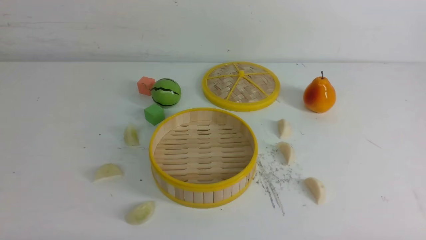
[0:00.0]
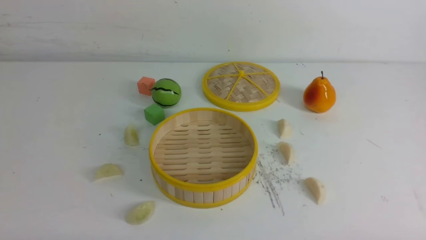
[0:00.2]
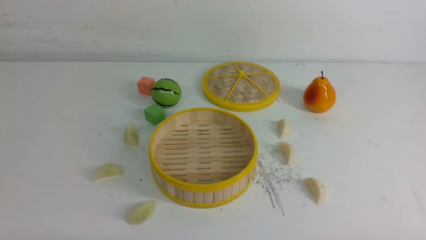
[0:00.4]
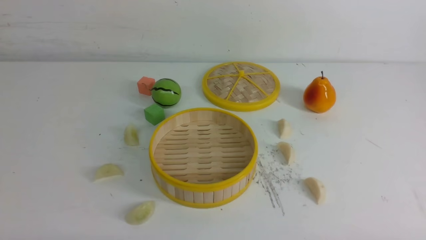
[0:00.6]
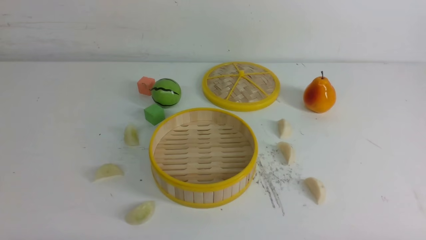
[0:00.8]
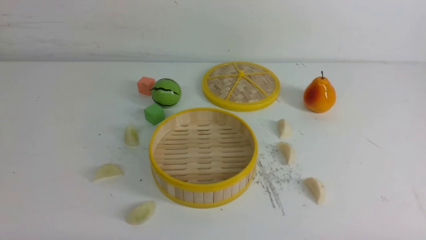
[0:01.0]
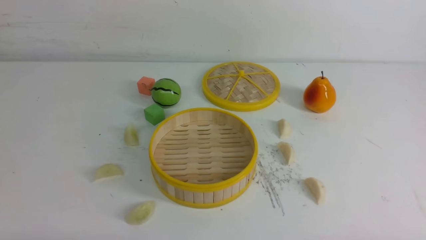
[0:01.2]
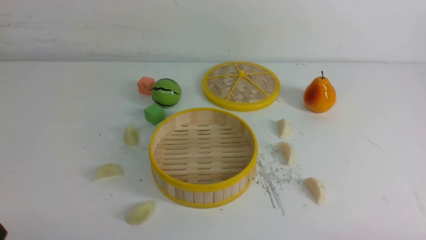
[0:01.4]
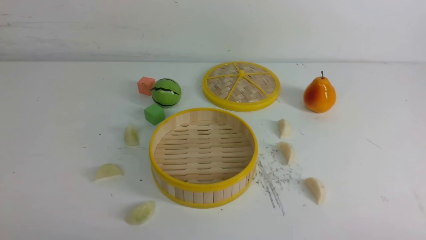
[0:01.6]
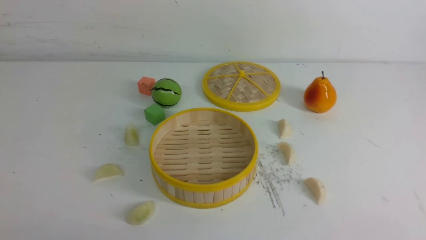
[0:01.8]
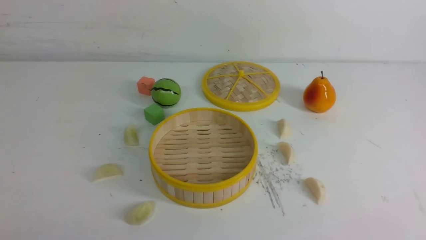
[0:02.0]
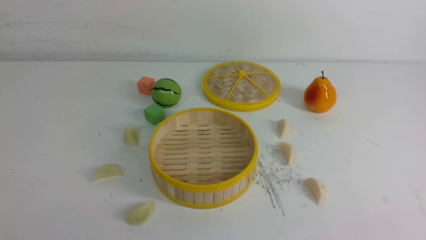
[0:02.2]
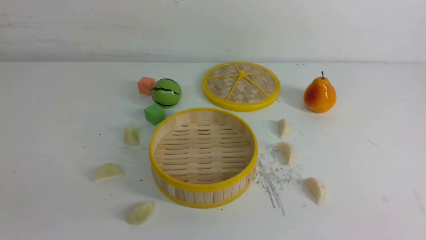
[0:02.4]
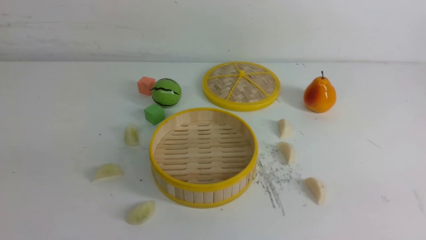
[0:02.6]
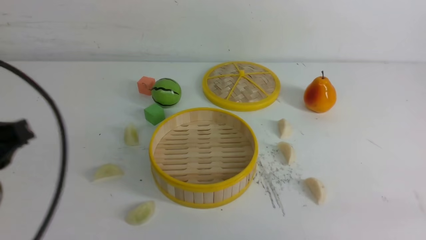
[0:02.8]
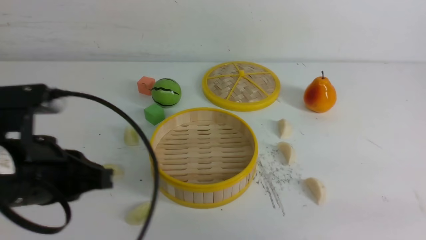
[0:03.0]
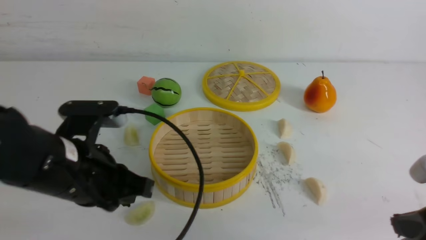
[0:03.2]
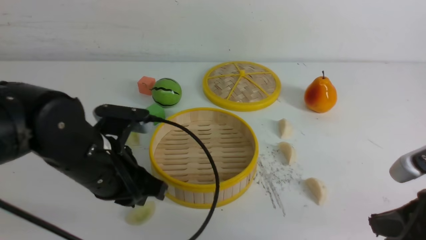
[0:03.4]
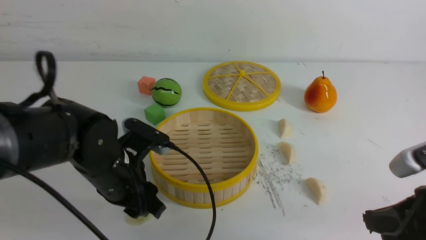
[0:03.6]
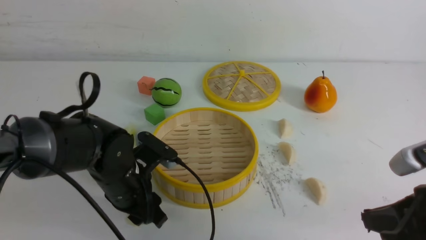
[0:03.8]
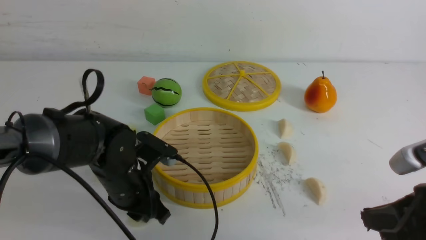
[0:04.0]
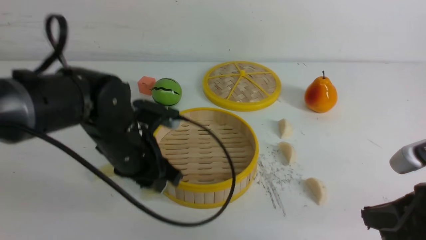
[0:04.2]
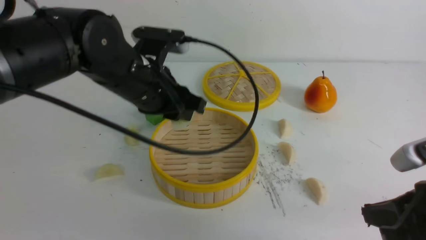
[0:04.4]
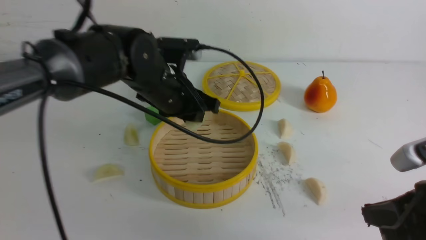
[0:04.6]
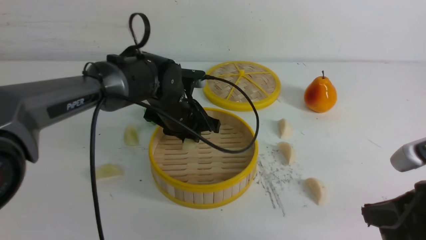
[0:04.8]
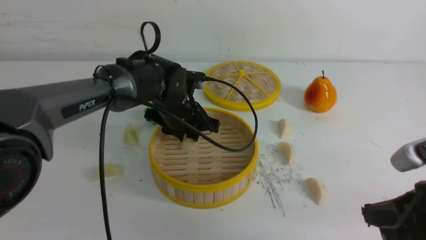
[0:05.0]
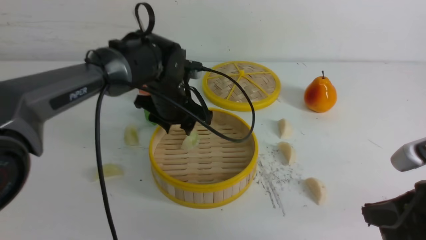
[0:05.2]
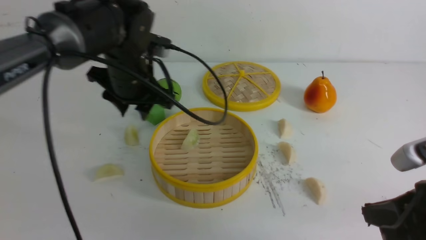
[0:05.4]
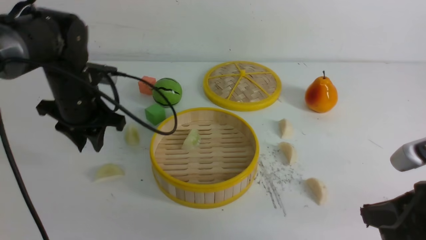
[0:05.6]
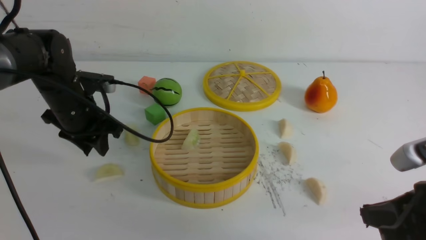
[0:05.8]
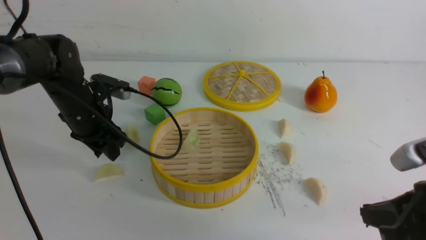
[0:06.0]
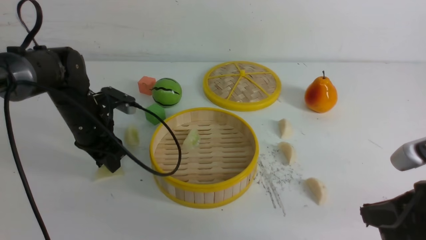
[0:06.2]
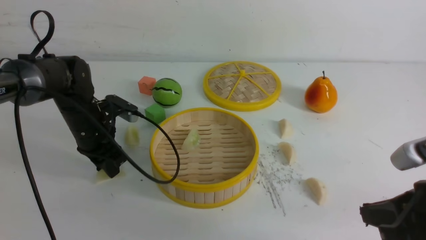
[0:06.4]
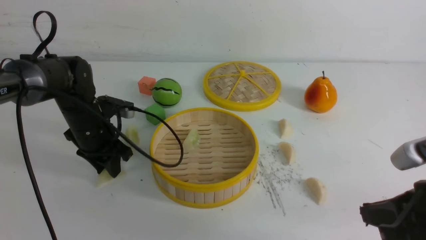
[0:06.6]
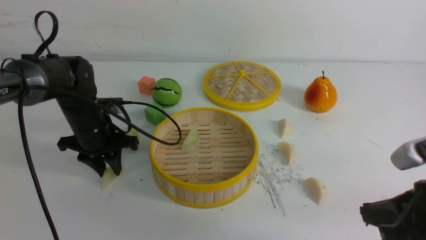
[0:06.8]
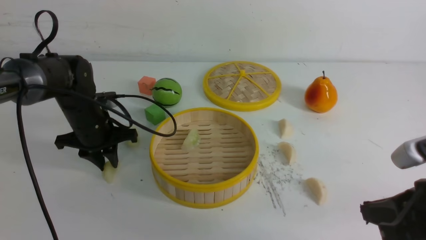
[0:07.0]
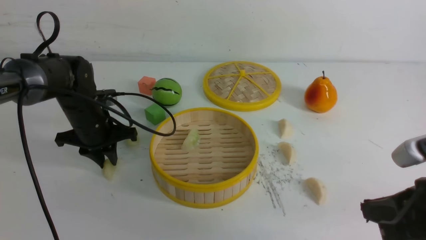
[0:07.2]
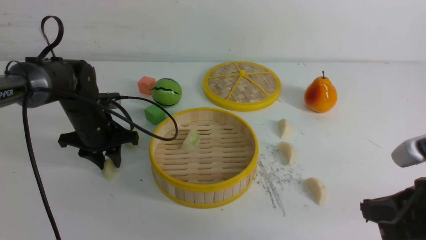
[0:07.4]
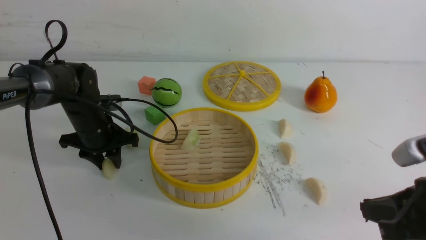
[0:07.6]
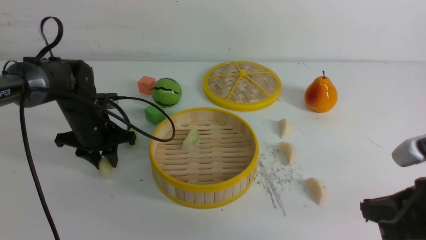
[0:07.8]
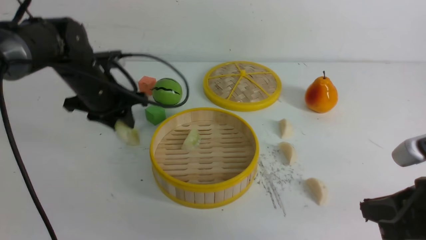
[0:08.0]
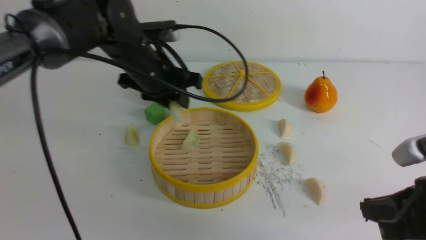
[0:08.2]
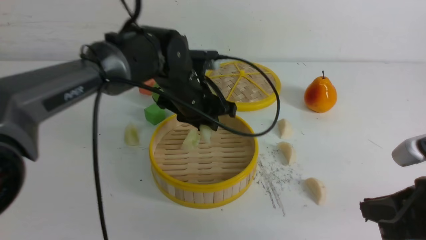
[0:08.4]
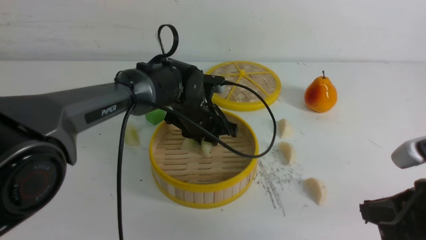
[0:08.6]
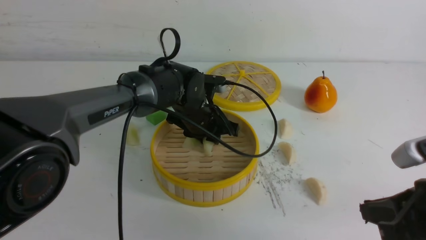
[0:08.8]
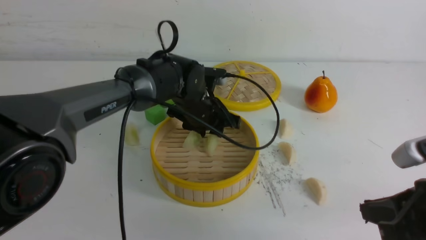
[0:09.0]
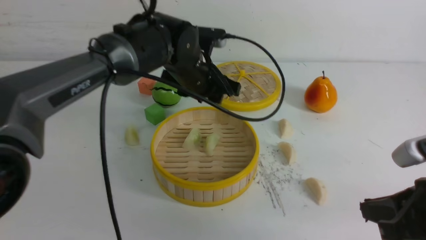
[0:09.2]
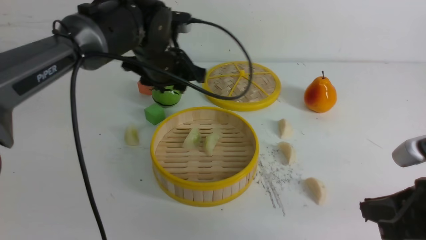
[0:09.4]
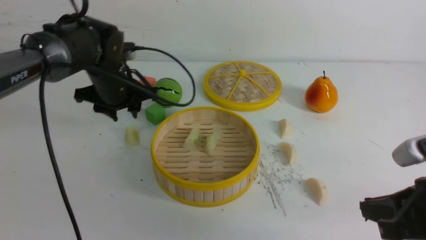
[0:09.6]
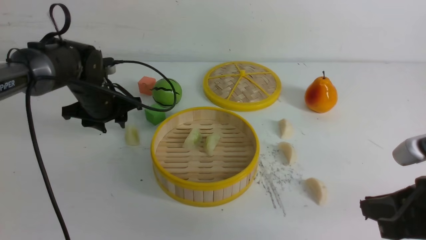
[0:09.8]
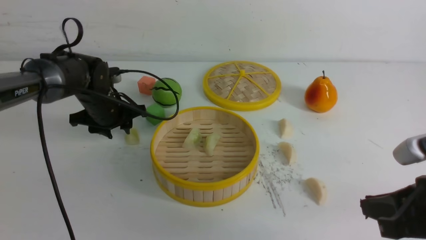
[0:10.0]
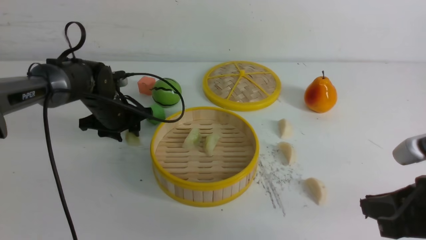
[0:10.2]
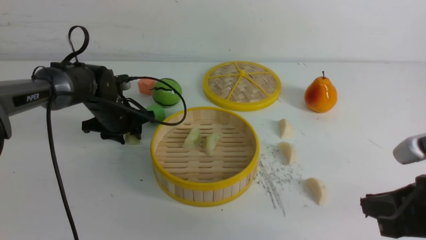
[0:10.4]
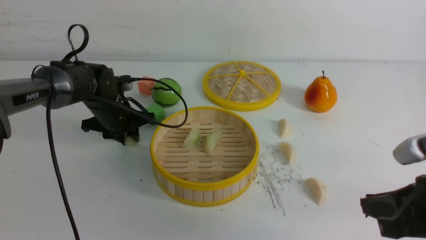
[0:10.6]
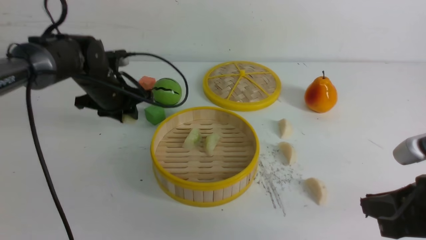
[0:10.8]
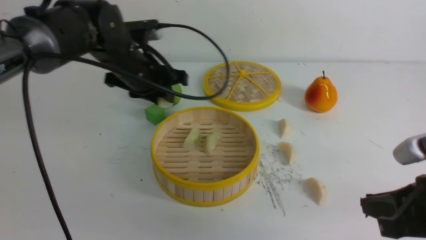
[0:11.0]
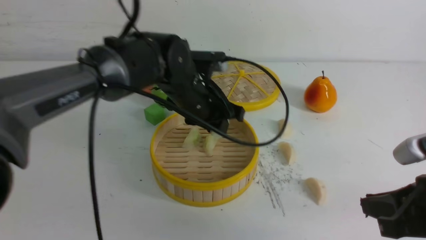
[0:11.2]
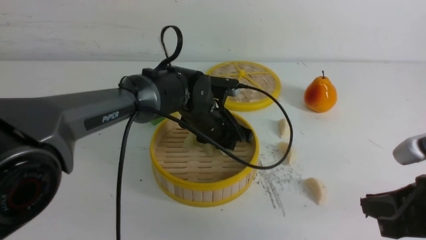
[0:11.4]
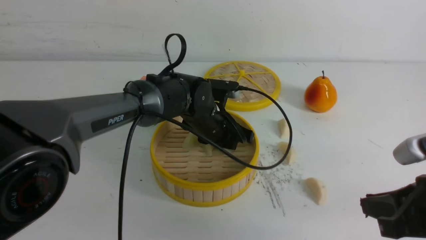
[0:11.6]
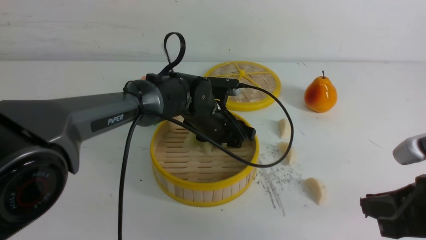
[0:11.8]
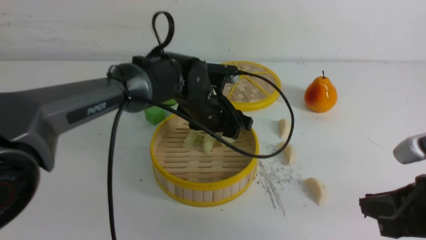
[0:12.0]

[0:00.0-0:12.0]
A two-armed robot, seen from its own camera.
Task of the whole recording: put the dumplings into the steamer on the white table.
Step, 0:00.0 to 0:04.0: use the left arm to grab a dumpling.
Step, 0:04.2 to 0:05.0: use the left arm to put the dumpling into the steamer.
Step, 0:05.2 to 0:07.6: use the left arm to grab a dumpling.
Step, 0:07.8 to 0:08.8: use the left arm to put the dumpling into the steamer.
Step, 0:09.0 to 0:10.4: use the left arm to grab a dumpling.
Step, 0:10.6 to 0:11.6: use the left arm to put the dumpling into the steamer.
0:01.6 to 0:03.0: The left gripper moves forward, upward and to the right, roughly 20 cm. Meanwhile the right gripper heads forward and upward, covering roughly 10 cm, and closes its fingers.
0:03.0 to 0:04.4: The right gripper shifts by roughly 5 cm, while the left gripper shifts approximately 20 cm forward and to the right, and opens up.
0:04.4 to 0:06.0: The left gripper goes approximately 15 cm to the left, downward and forward.
0:07.6 to 0:09.0: The left gripper travels to the right by some 20 cm.
0:09.0 to 0:10.4: The left gripper is displaced to the left by about 15 cm.
0:10.4 to 0:12.0: The left gripper travels to the right, upward and backward by about 20 cm.

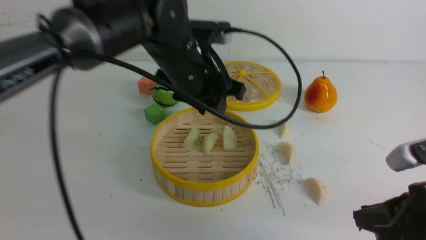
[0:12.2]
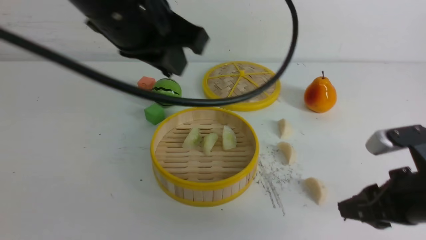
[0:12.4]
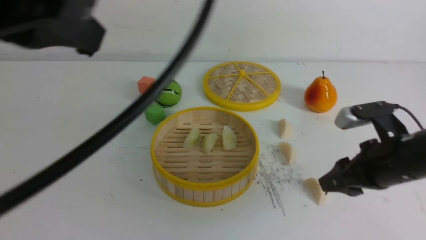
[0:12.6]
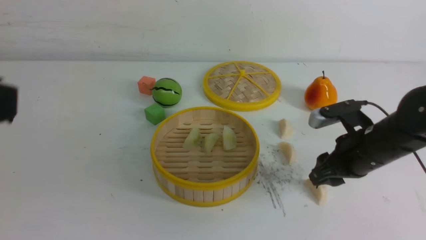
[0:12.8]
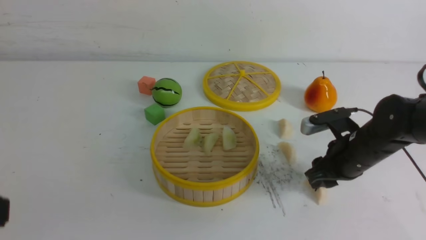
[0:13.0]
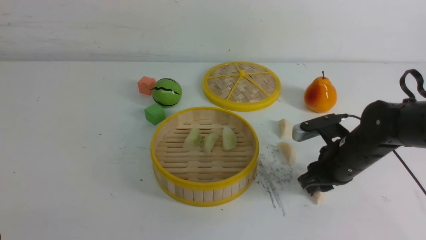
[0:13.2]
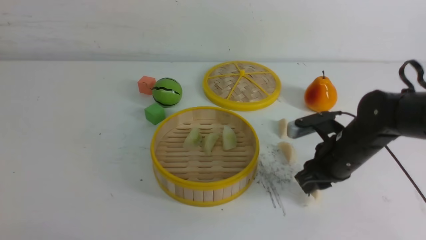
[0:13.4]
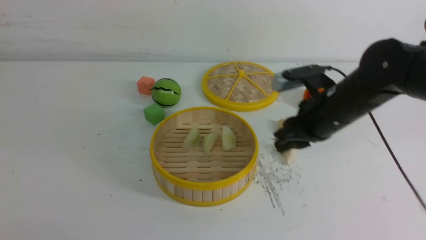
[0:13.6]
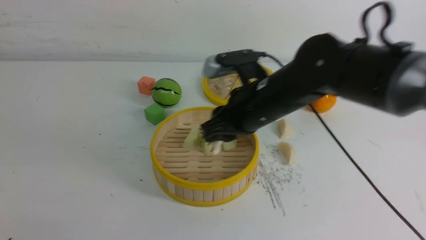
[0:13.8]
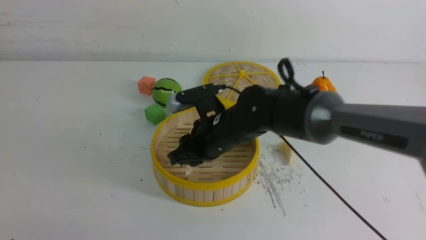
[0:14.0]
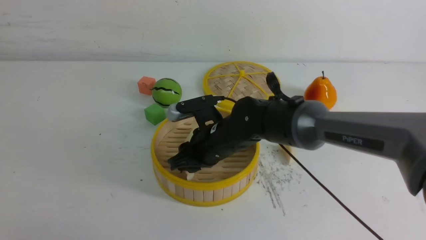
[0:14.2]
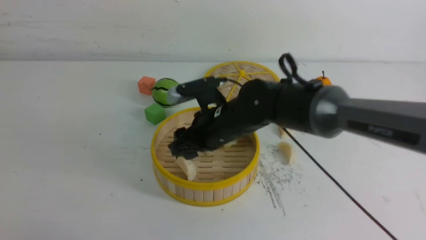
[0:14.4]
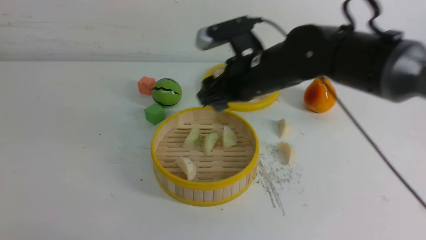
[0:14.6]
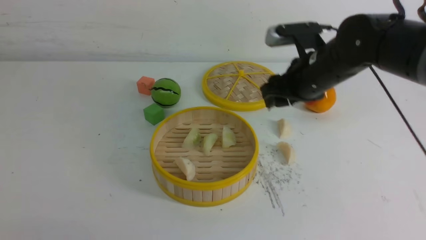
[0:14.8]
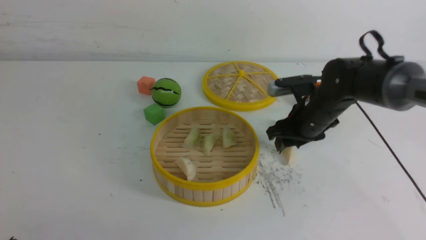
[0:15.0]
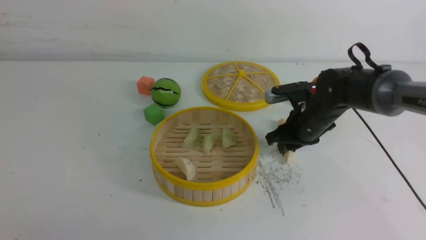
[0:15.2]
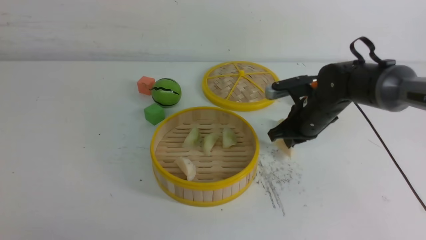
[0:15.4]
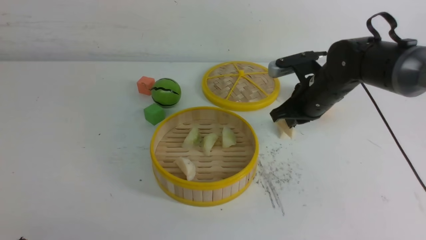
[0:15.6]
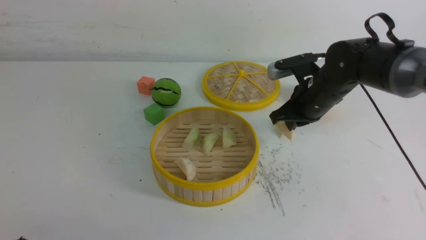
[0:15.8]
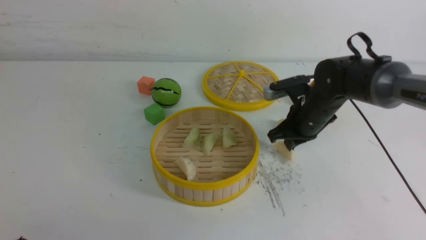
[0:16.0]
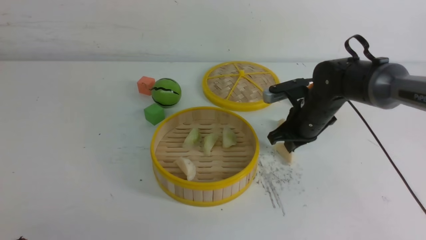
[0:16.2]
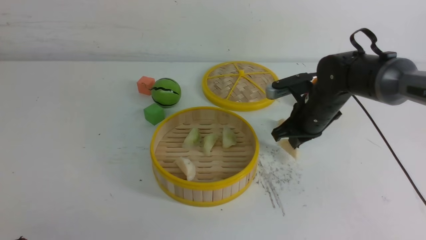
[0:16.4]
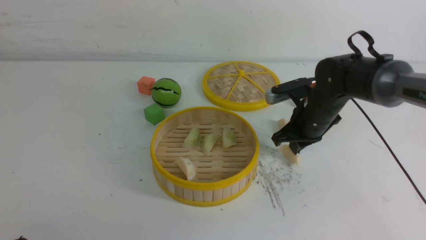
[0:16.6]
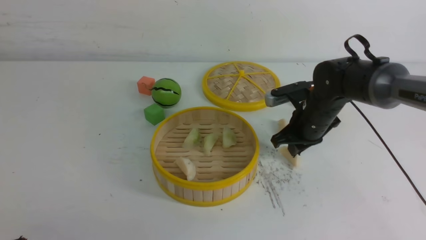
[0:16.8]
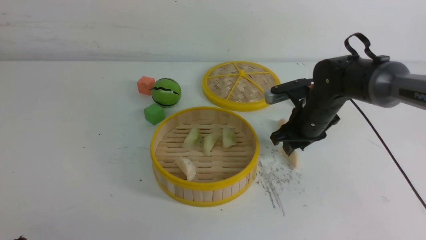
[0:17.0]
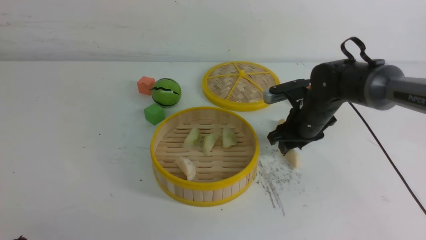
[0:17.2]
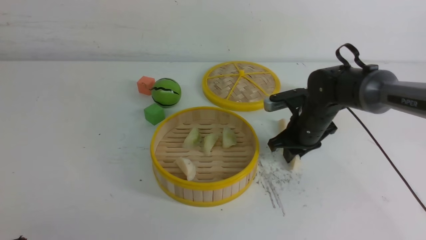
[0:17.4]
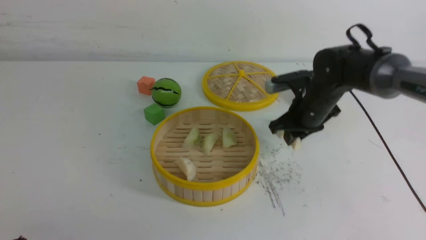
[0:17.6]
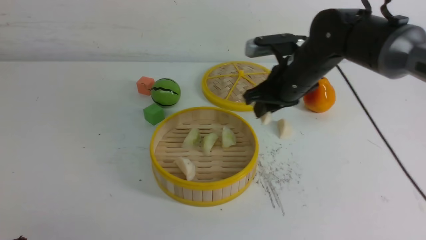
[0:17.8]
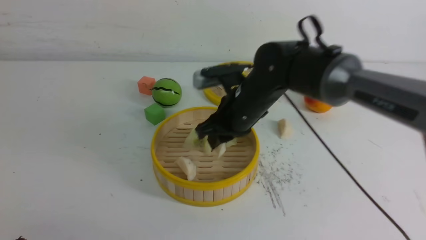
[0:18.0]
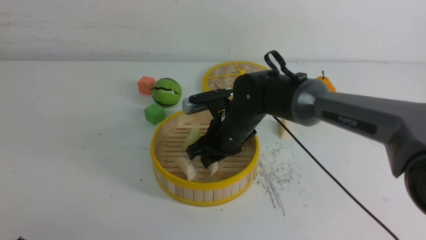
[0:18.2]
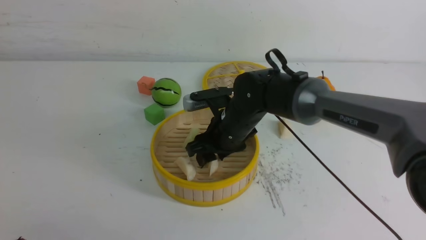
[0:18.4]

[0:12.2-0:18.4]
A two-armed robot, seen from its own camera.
Task of the whole recording: put the dumplings into the steamer on the white table.
Step, 0:12.2 to 0:13.2: use the right arm to grab a dumpling.
Step, 0:13.6 to 0:14.2: use the right arm to put the dumpling into the steamer.
Step, 0:14.4 to 0:17.2: use the right arm to grab a dumpling.
Step, 0:17.4 to 0:18.4: use the right arm to put the dumpling into the steamer.
0:12.2 to 0:13.8: The right gripper shifts some 25 cm to the left and forward. Meanwhile the left gripper goes roughly 35 cm backward and to the left, and closes its fingers.
0:13.8 to 0:15.4: The right gripper shifts about 10 cm to the right and forward, and opens and closes again.
0:15.4 to 0:16.8: There are only small adjustments of the grippers.
0:16.8 to 0:18.4: The right gripper is displaced to the left by approximately 15 cm, and opens up.
